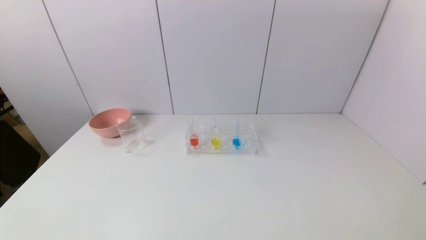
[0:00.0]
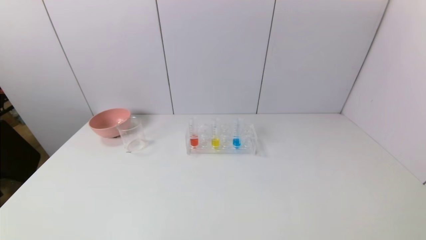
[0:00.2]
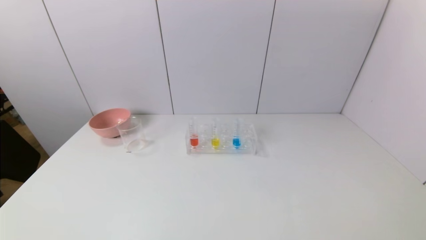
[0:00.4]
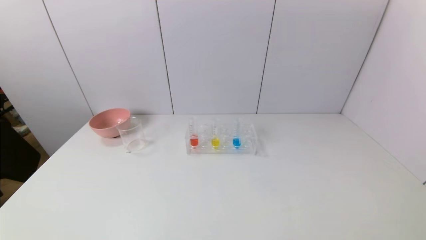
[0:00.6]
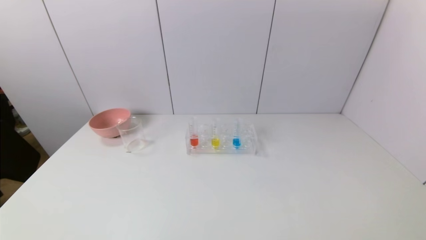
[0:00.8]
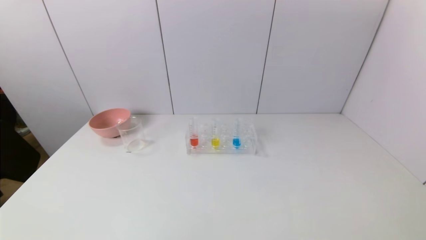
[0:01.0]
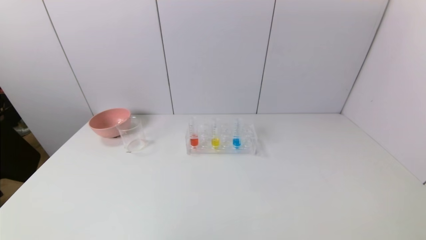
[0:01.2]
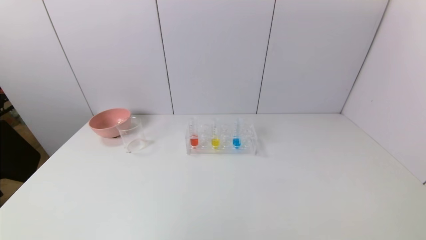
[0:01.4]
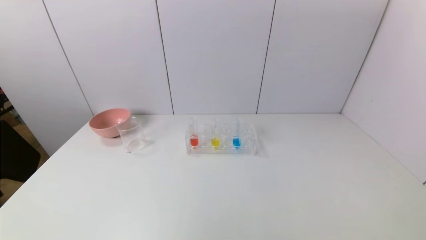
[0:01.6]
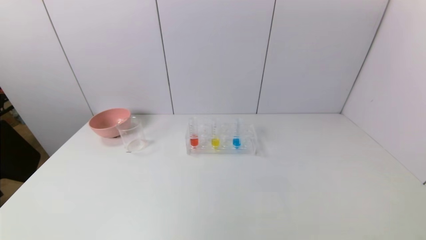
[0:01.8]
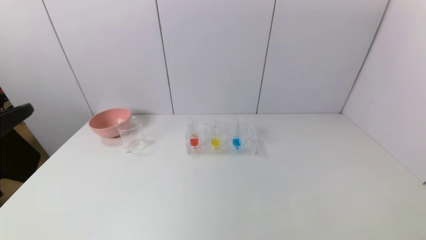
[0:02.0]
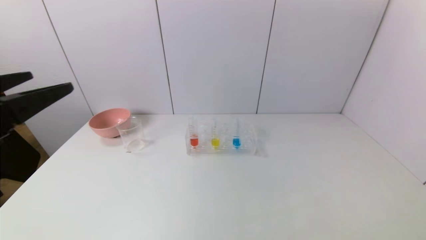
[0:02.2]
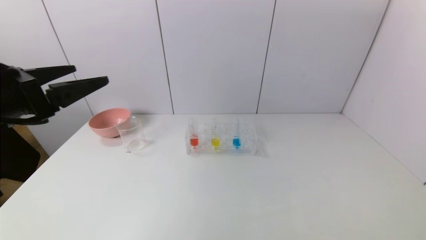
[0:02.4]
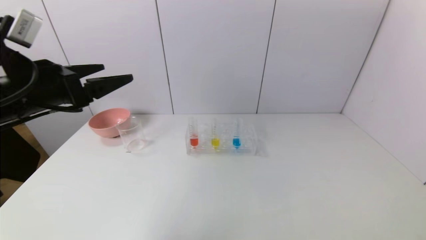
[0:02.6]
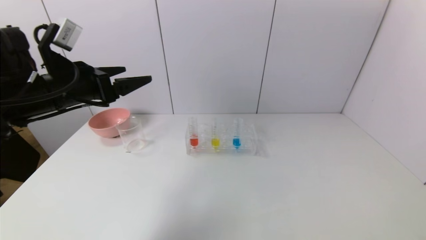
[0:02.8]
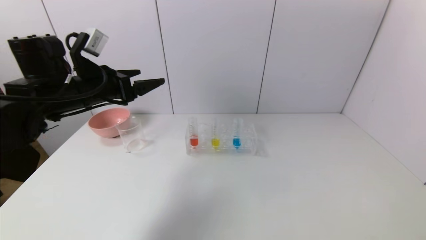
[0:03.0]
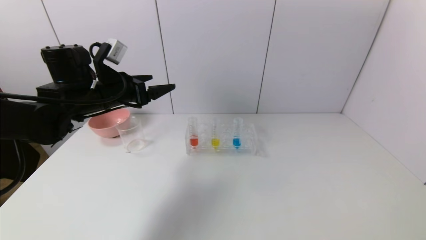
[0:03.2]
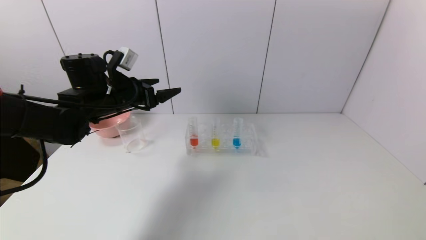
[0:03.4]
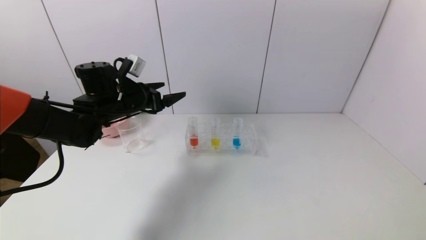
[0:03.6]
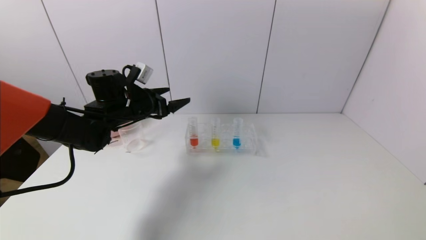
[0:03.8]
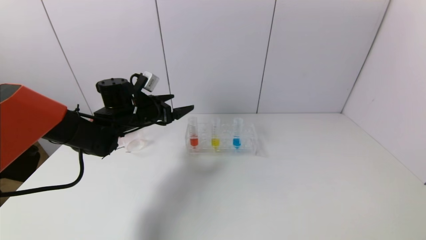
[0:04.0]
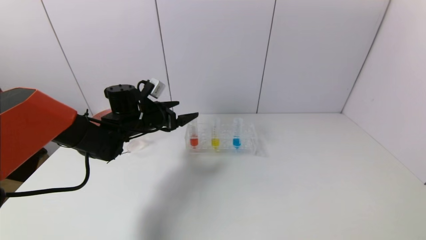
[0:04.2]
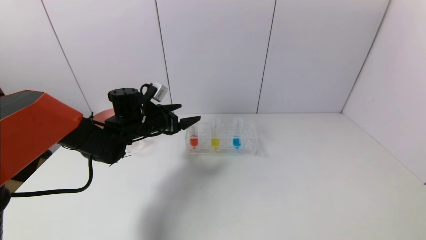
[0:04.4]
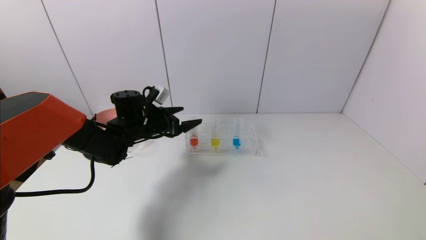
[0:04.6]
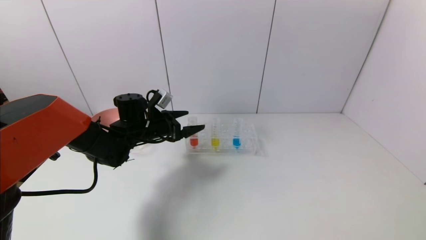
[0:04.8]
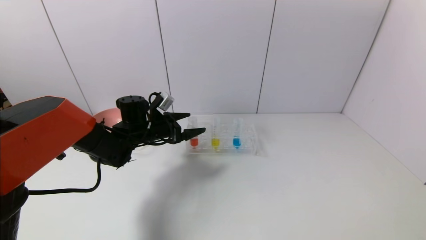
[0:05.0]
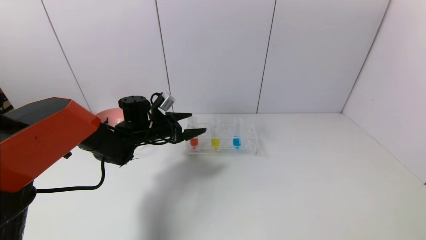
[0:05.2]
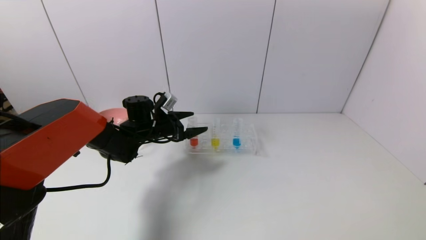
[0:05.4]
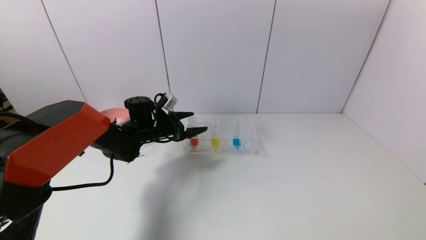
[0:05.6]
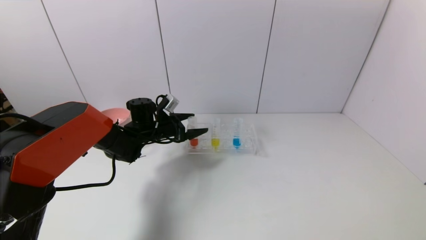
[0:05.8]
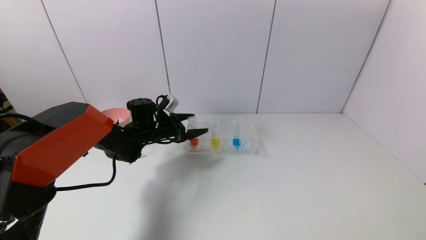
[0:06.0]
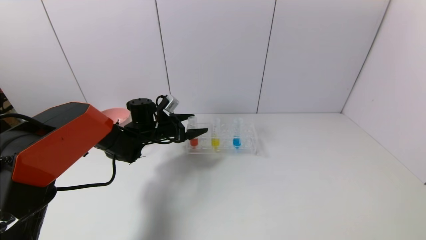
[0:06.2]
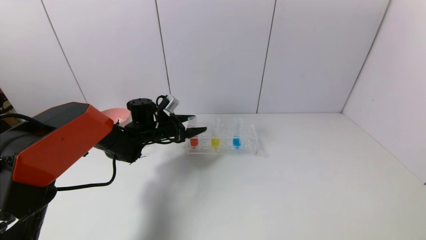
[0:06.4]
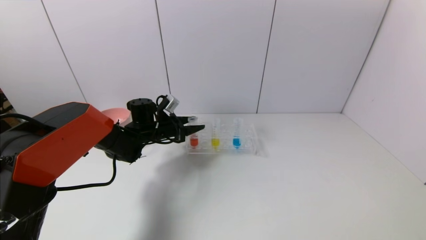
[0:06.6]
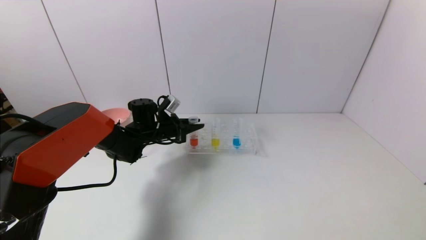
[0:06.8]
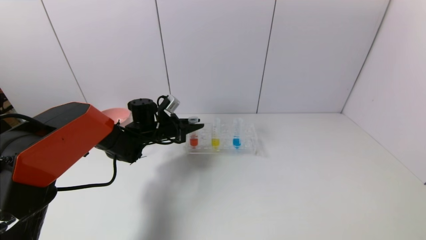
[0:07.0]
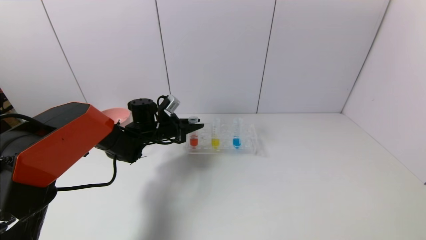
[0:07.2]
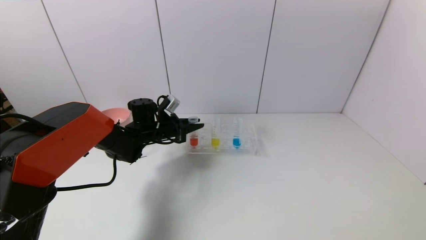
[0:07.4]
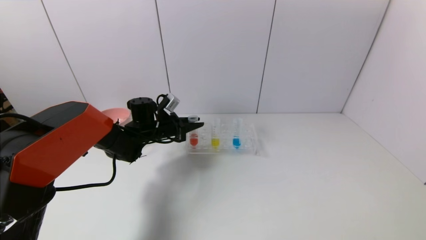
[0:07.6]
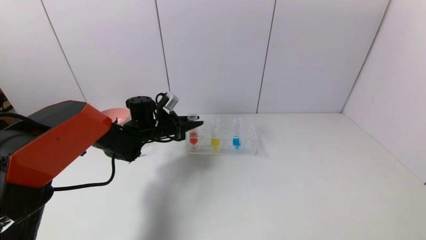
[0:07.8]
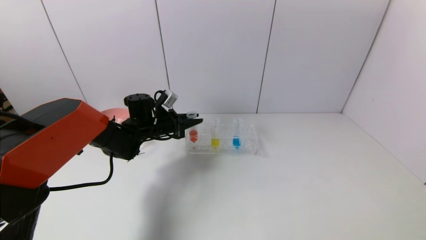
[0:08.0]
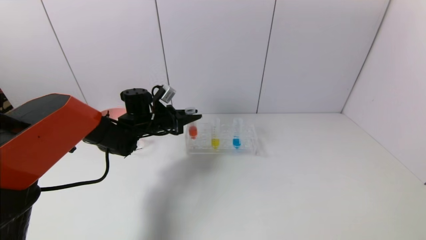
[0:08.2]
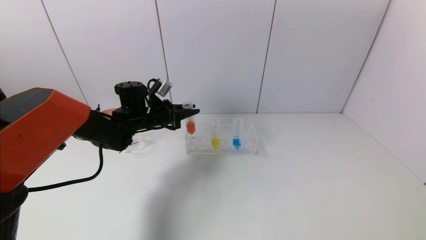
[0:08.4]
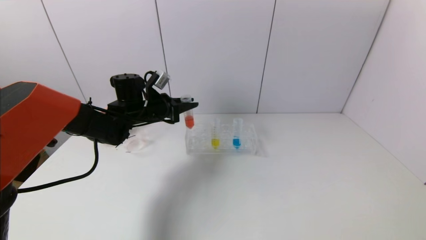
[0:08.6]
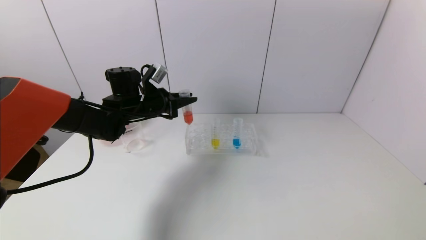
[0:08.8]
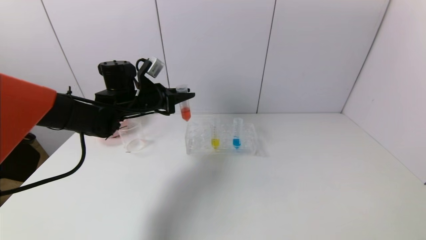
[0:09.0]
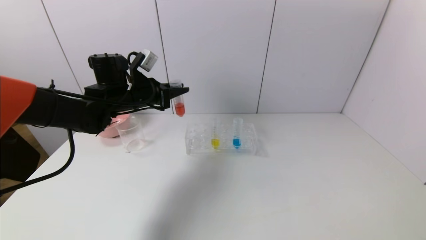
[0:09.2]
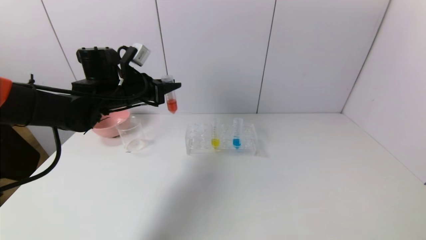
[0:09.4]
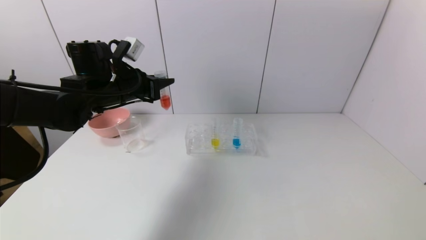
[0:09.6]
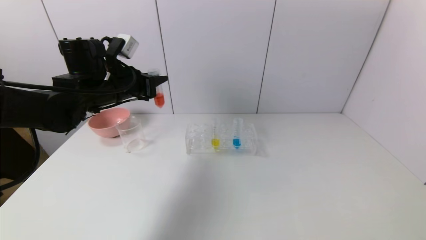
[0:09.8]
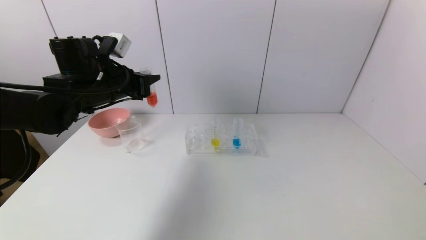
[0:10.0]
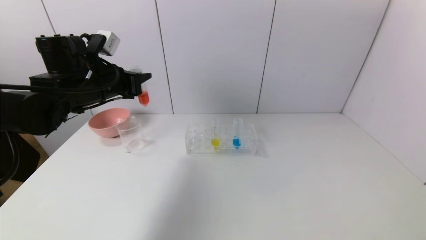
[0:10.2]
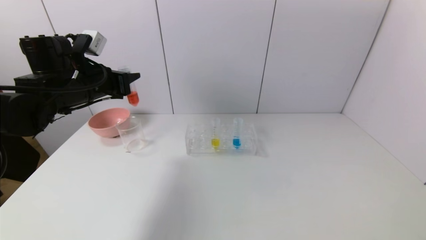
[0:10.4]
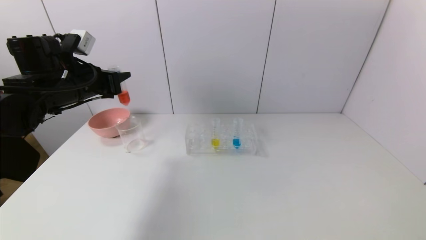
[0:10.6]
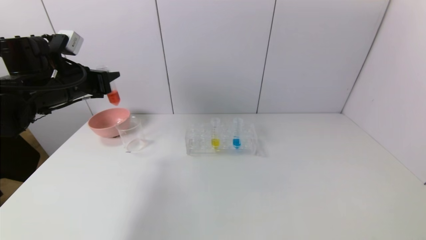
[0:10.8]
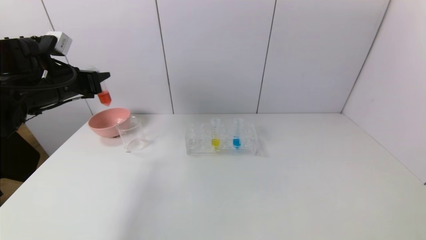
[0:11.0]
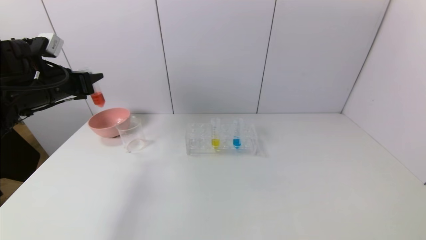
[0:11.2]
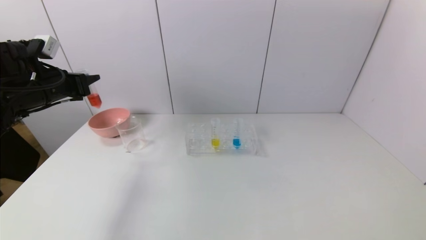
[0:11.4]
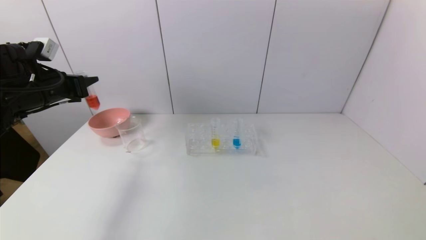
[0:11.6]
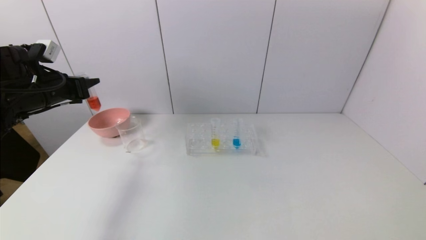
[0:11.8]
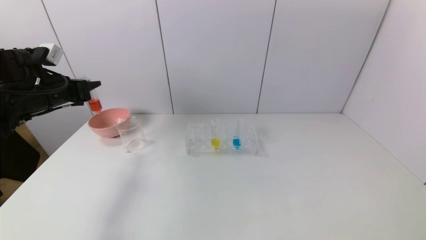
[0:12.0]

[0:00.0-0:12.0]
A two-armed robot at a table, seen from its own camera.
Task of the whole recording: pick up the test tube with red pigment and the test tube with blue pigment by grippers and pour them into the container.
Step, 0:00.0 to 0:07.4: Grasp the red reagent with the left gripper.
0:01.6 to 0:03.0: The left gripper moves forward, approximately 30 cm.
0:03.0 to 0:04.4: The left gripper shifts approximately 15 cm downward, forward and to the right.
0:04.4 to 0:06.0: The left gripper ends up roughly 5 cm from where it was.
0:06.0 to 0:07.6: The left gripper closes up.
0:07.6 to 0:09.0: The left gripper shifts roughly 10 cm upward.
0:09.0 to 0:10.4: The left gripper moves to the left, backward and upward, approximately 10 cm.
0:10.4 to 0:12.0: The left gripper travels to the left by some 10 cm.

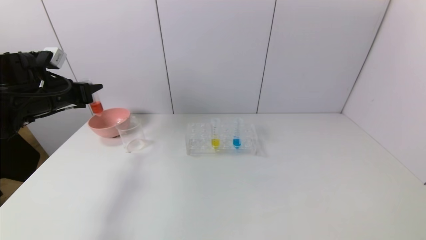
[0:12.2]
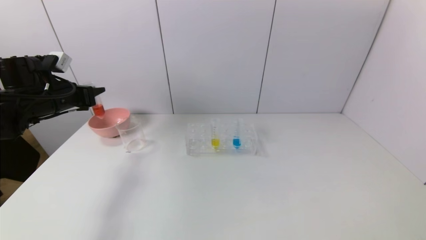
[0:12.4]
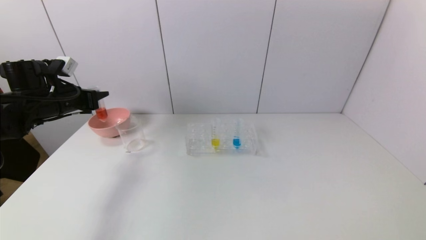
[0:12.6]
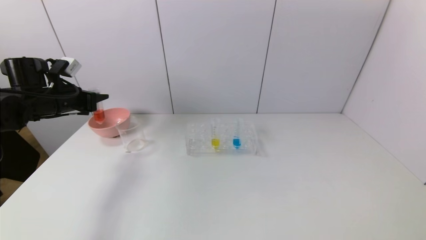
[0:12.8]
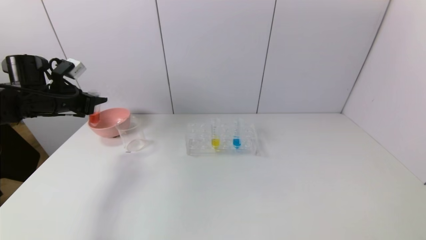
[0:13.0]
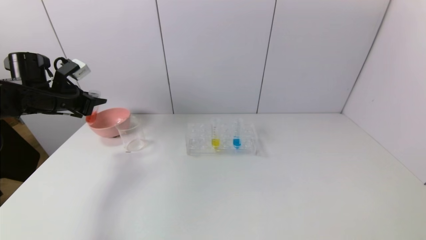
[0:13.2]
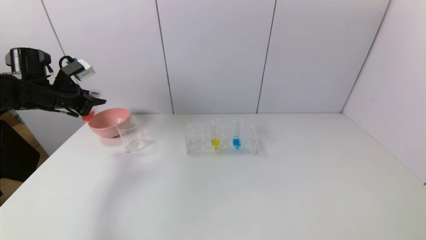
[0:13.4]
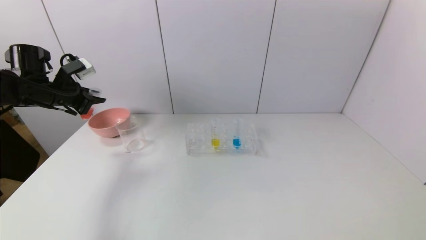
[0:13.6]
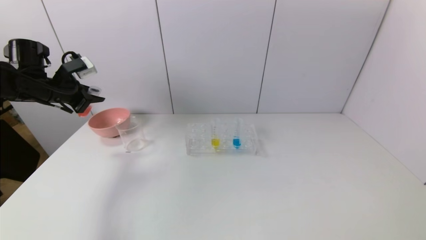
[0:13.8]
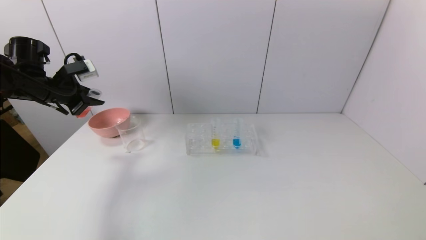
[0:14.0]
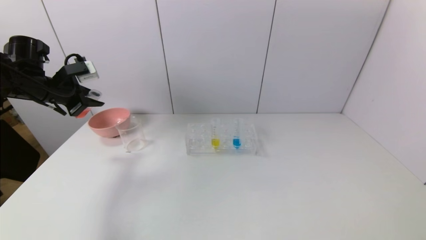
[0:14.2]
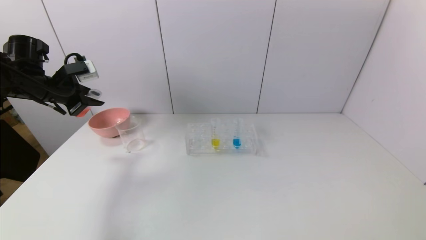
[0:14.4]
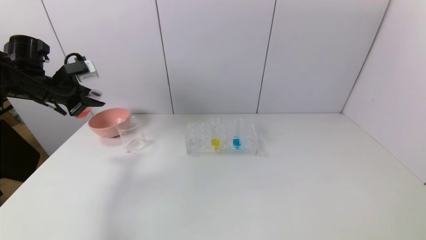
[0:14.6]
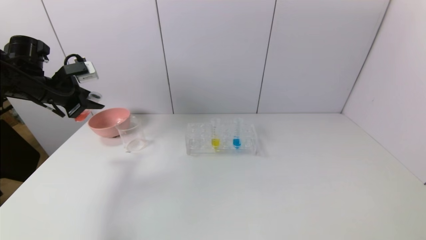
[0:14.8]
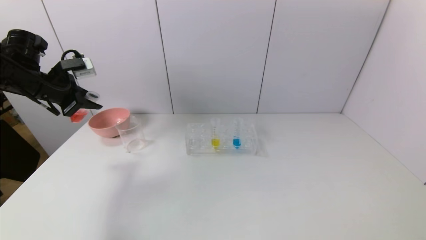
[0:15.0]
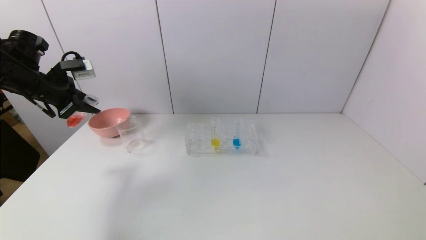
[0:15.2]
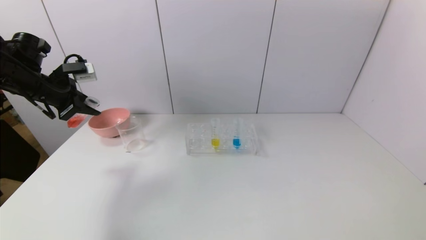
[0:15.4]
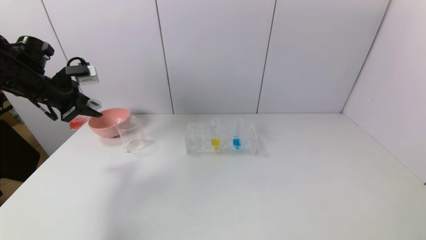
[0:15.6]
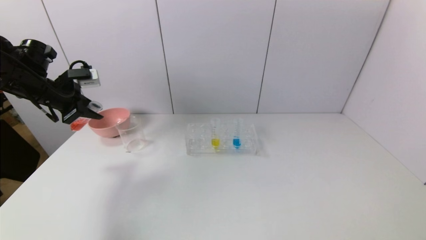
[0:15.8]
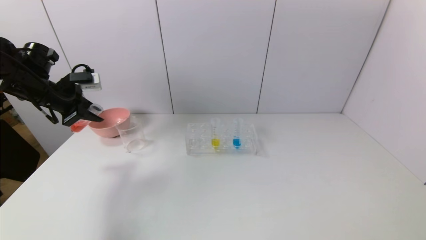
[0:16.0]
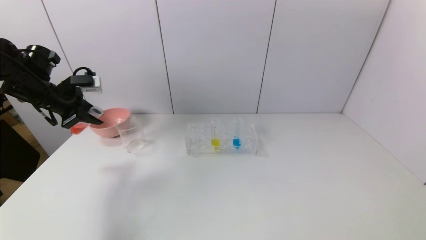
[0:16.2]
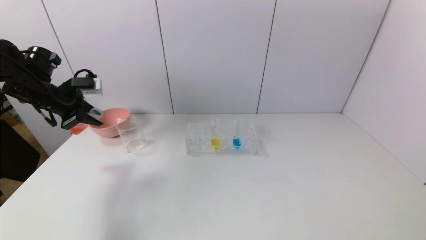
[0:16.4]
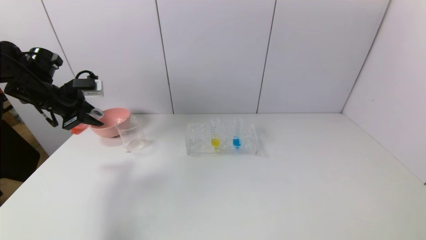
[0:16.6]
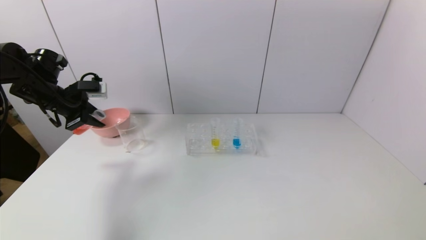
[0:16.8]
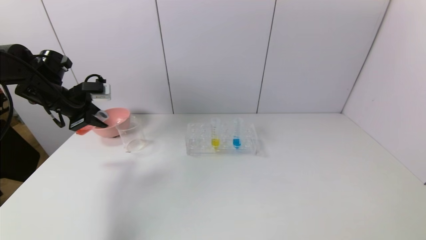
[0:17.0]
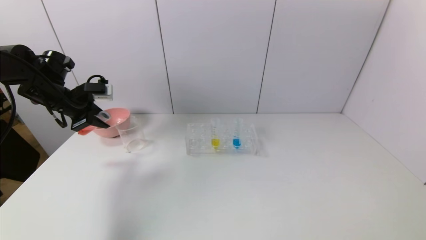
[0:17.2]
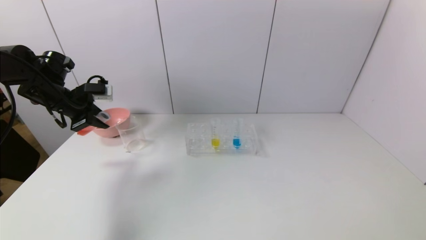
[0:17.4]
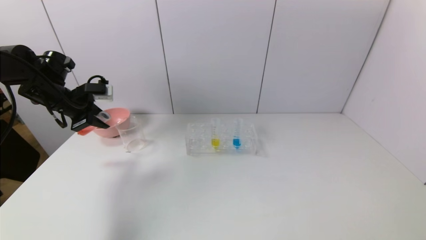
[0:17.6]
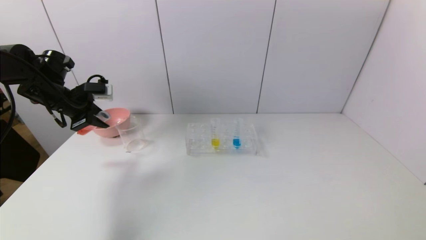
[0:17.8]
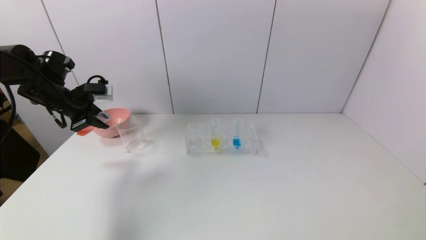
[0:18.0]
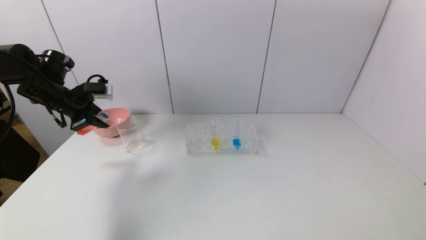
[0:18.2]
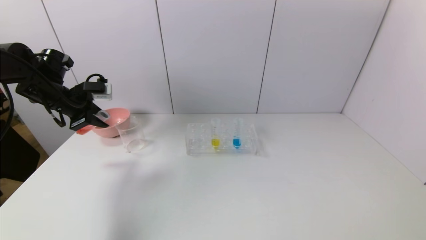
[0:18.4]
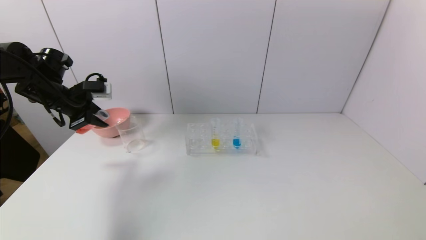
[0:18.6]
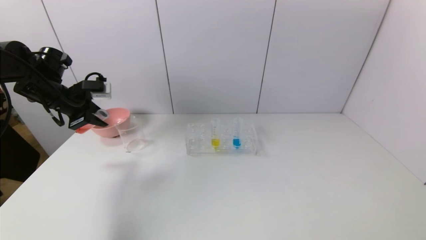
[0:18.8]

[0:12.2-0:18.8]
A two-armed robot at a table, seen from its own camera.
Task of the whole recording: pick up the test tube with red pigment and the test tube with blue pigment by grippers and pour them into the container.
0:13.8 to 0:15.4: The grippers stay close to where they were, moving slightly.
0:15.4 to 0:17.2: The grippers move only a little.
0:17.2 to 0:18.8: Both grippers stay put.
